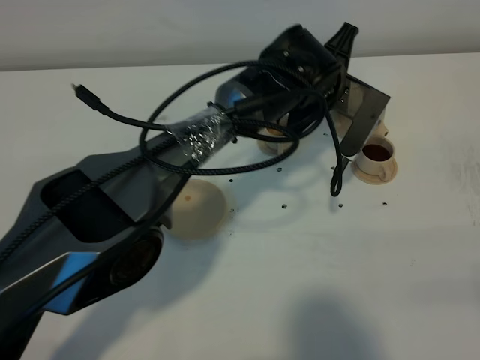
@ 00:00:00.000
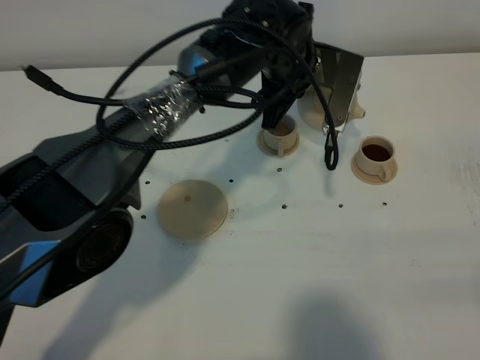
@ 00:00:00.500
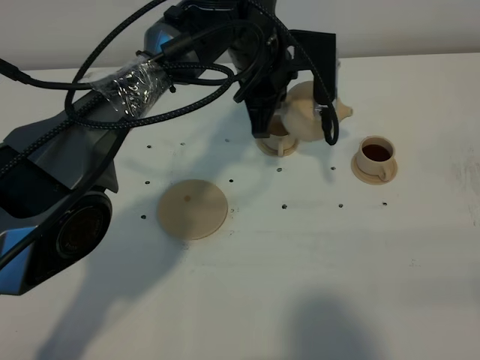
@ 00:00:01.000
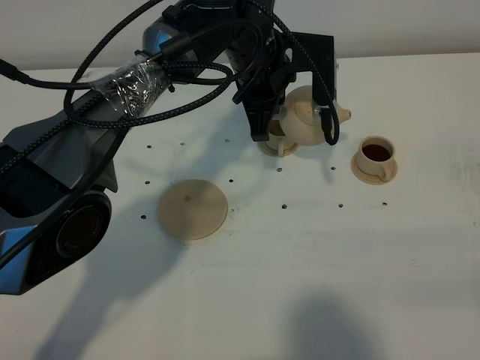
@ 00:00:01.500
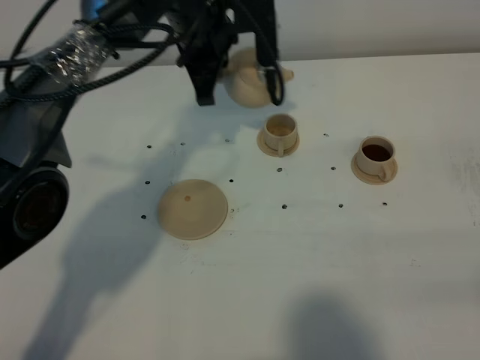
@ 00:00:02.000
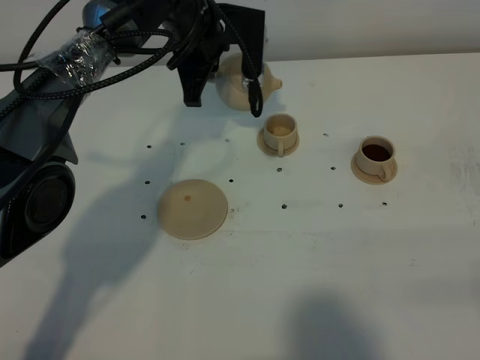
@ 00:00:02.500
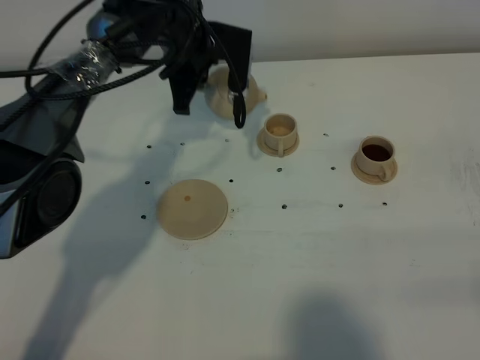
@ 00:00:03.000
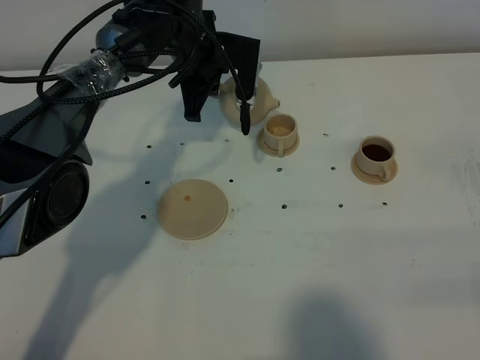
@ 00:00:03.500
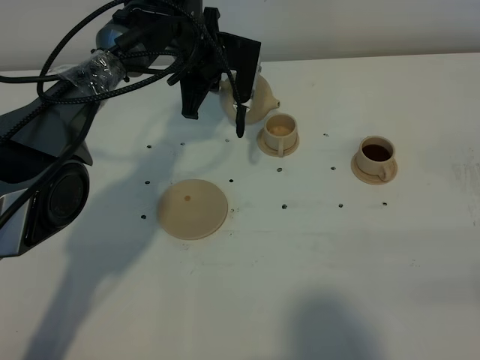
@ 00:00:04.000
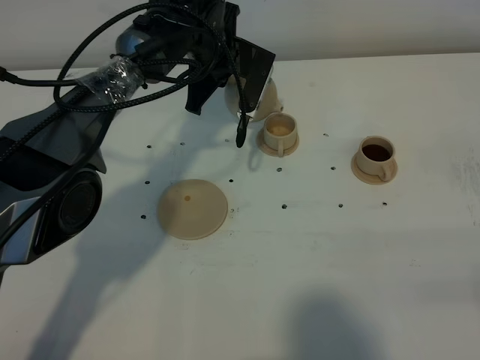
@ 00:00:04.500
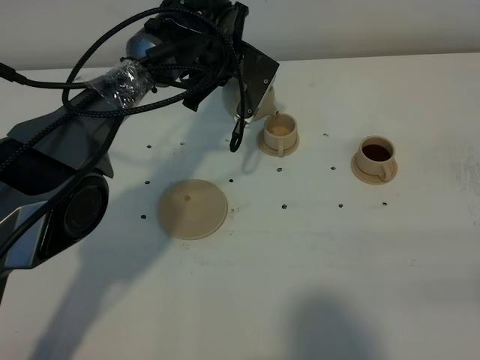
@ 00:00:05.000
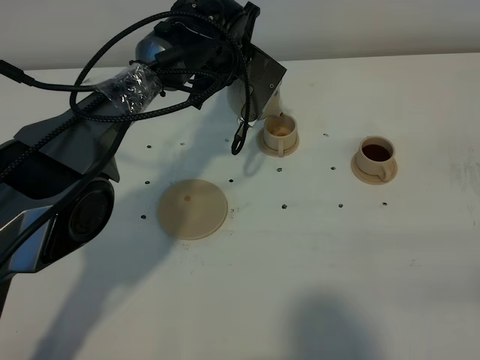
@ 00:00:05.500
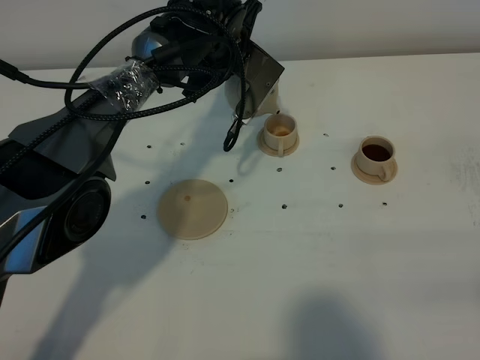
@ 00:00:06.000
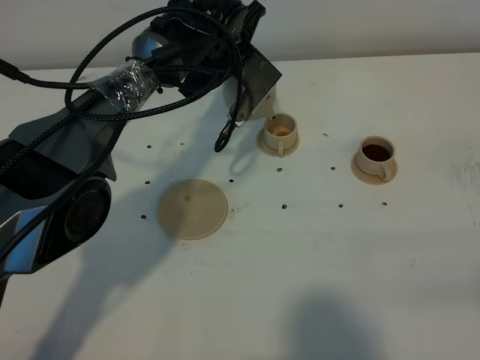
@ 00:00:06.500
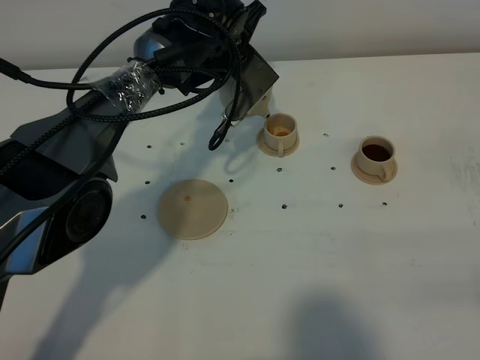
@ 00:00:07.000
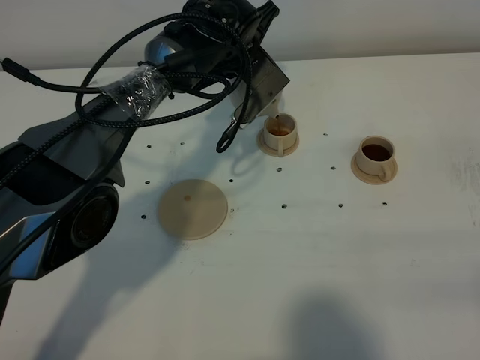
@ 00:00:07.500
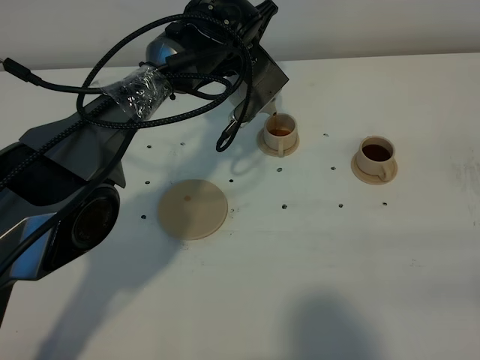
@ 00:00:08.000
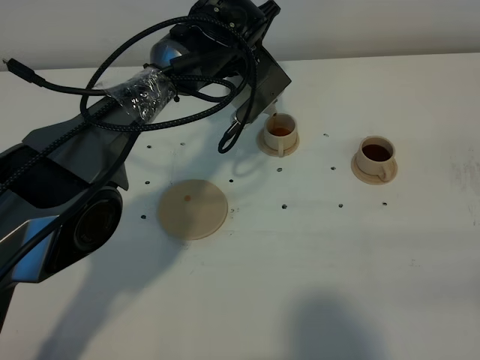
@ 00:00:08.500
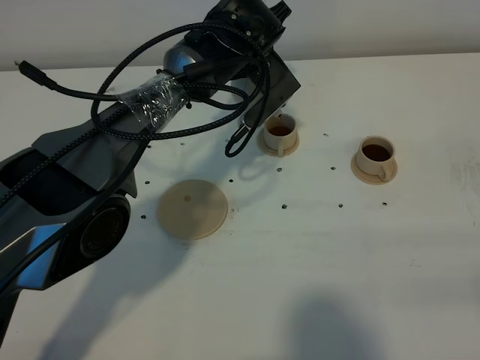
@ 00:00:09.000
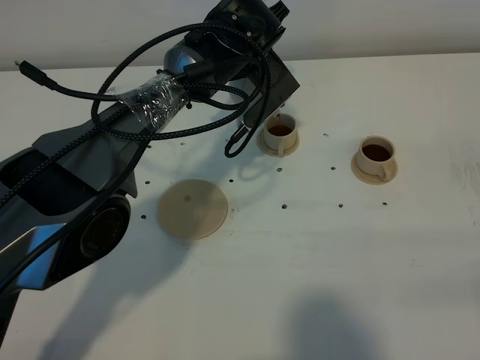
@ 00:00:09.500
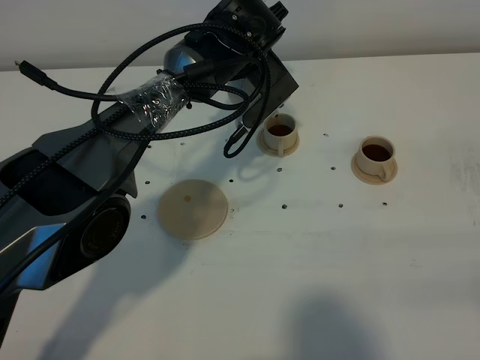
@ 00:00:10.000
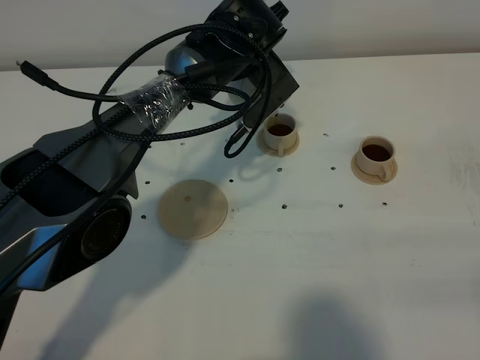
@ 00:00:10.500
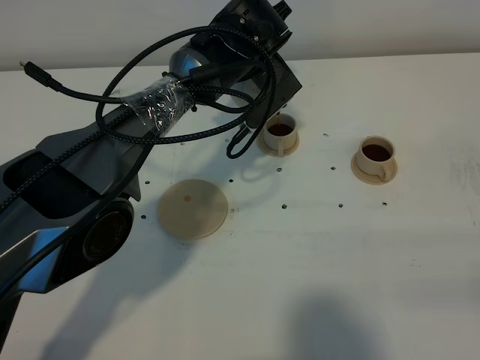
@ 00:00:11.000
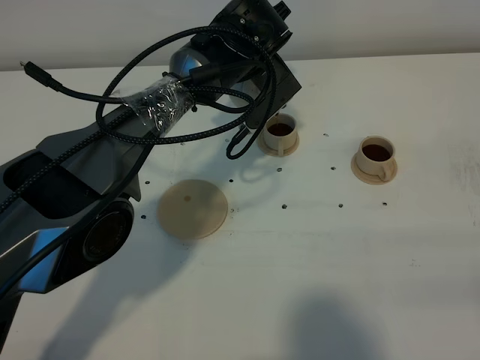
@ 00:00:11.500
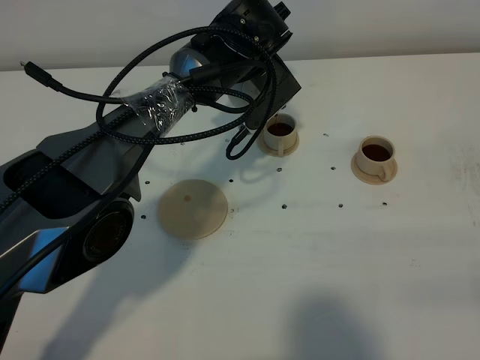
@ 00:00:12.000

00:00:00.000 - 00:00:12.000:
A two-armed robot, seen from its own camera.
Task of the whole recording: grasp the brown teapot and pour the tea into the two brown teacups one by one, put the brown teapot back in its original place.
00:00:00.000 - 00:00:02.000: The left gripper is displaced to the left and upward by some 15 cm.
00:00:02.000 - 00:00:04.000: The left gripper heads downward, covering about 10 cm.
00:00:06.000 - 00:00:10.000: The grippers move only a little.
00:00:10.000 - 00:00:12.000: Both grippers stay about where they are.

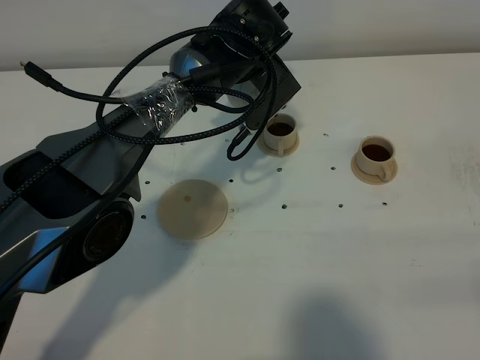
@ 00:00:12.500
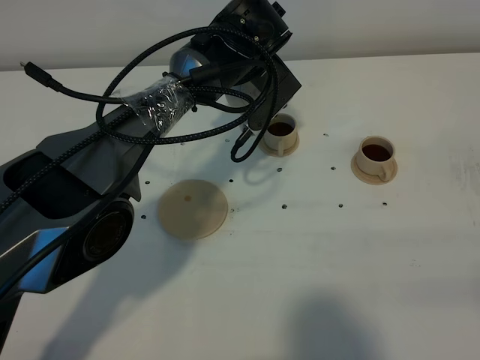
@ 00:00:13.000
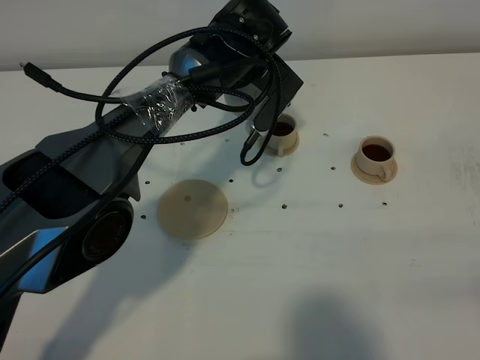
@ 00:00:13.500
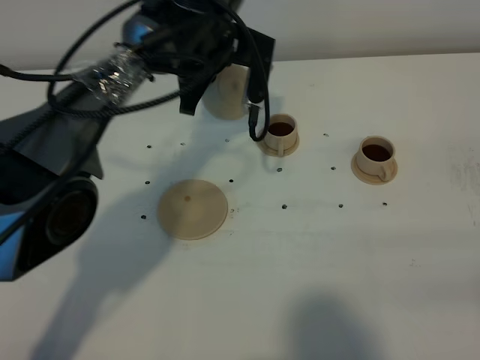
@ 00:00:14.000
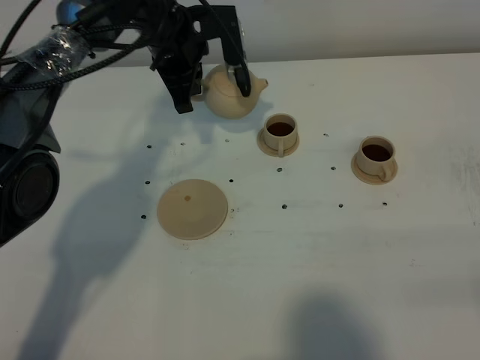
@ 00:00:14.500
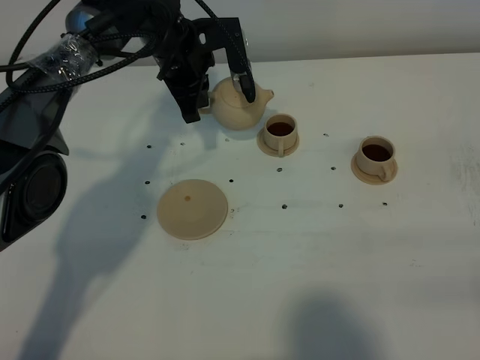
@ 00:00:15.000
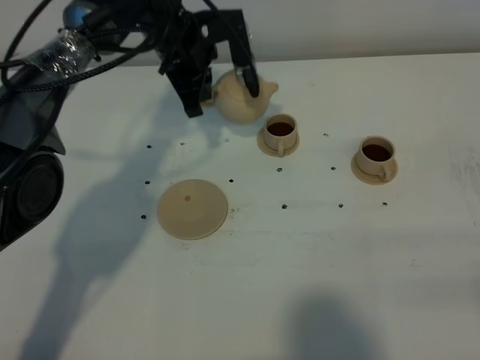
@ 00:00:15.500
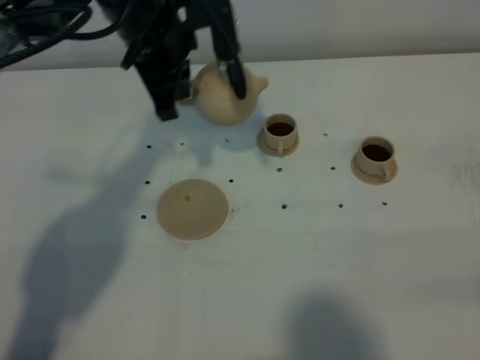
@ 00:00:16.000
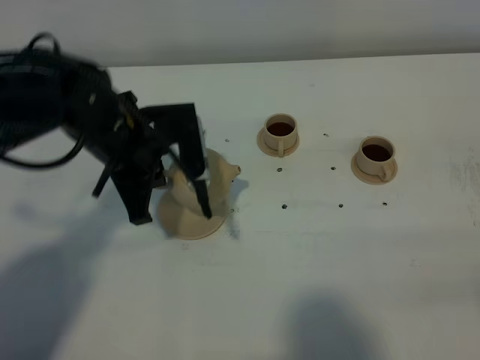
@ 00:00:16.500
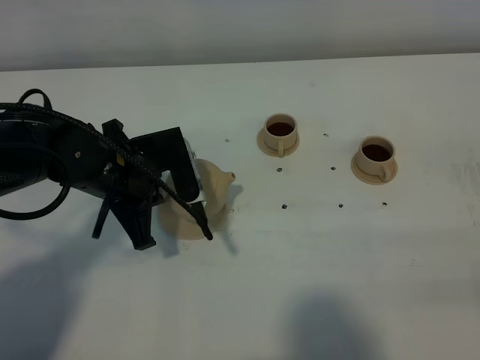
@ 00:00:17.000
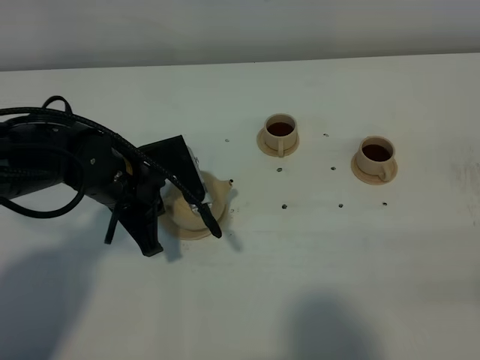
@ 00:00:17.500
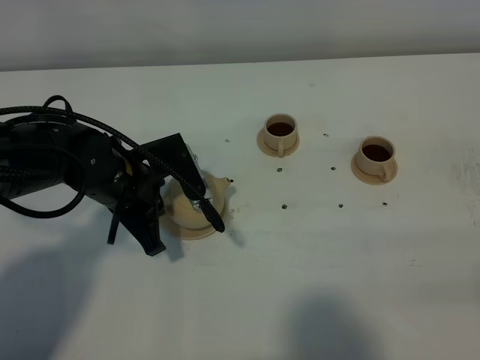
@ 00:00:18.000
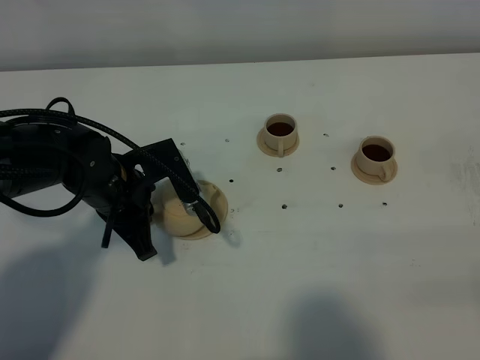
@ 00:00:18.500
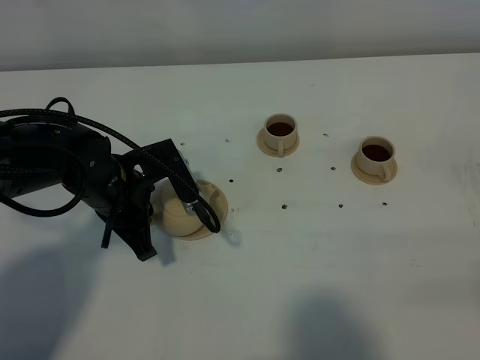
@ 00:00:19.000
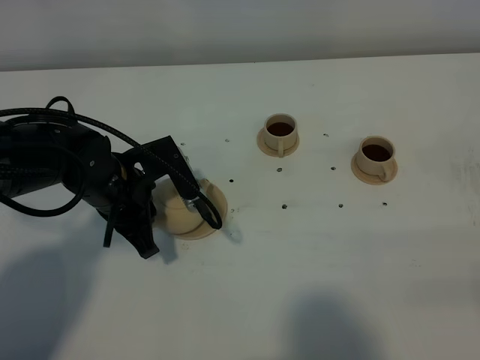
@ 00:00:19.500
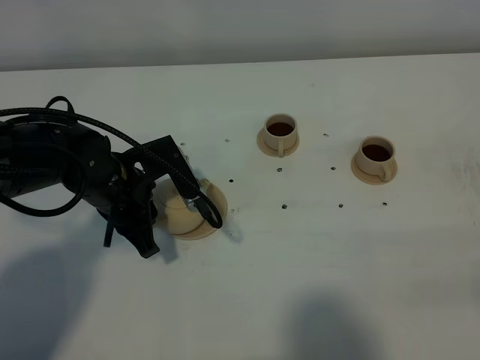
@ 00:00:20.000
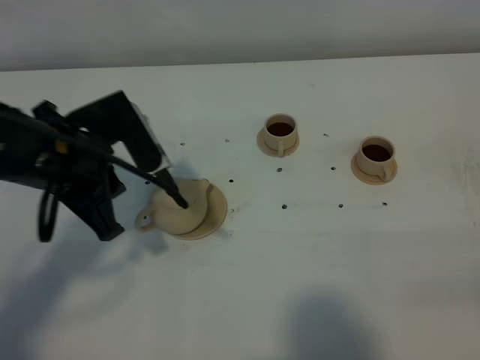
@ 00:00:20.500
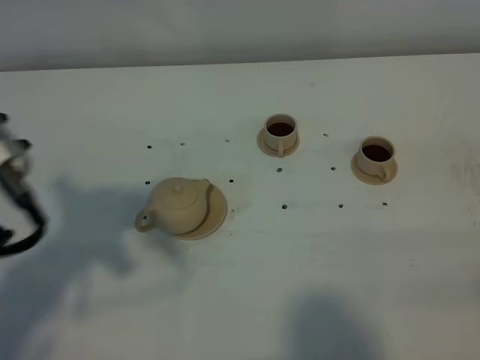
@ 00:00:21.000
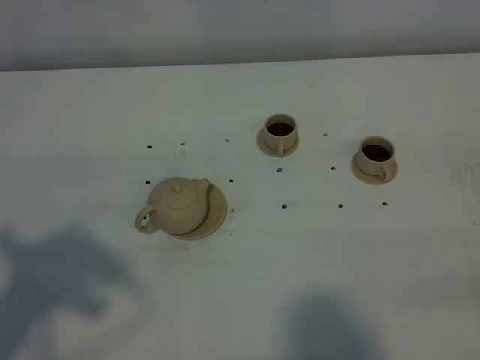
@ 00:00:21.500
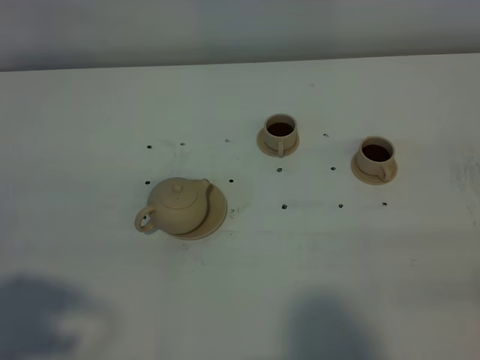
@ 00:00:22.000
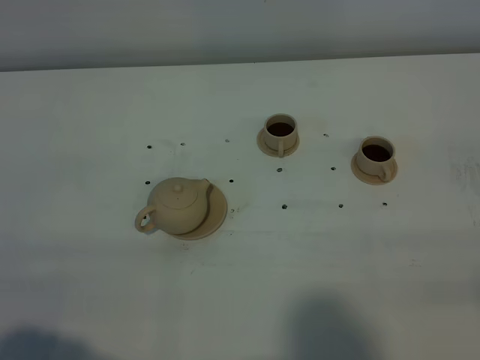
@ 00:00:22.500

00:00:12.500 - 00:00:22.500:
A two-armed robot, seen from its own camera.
Task of the whole recording: grasp the brown teapot and pour the tea into the two brown teacups one by one, put the brown teapot back in its original place.
00:00:12.500 - 00:00:14.500: The left gripper travels to the left by about 10 cm.
00:00:14.500 - 00:00:16.500: The left gripper goes approximately 15 cm backward.
00:00:16.500 - 00:00:18.500: The left gripper shifts by some 5 cm.
00:00:18.500 - 00:00:20.500: The left gripper moves upward, approximately 10 cm, and opens its fingers.
00:00:20.500 - 00:00:22.500: The left gripper is displaced backward by approximately 25 cm.

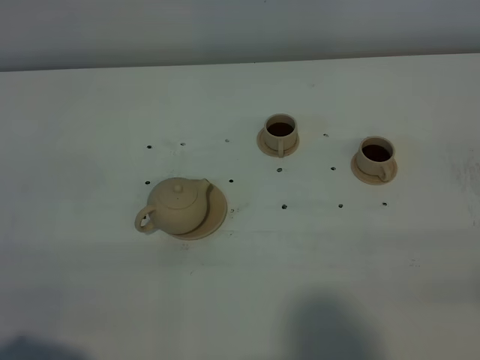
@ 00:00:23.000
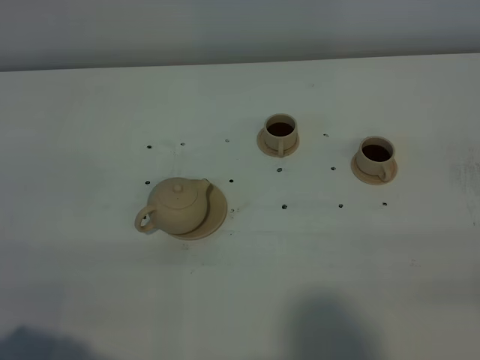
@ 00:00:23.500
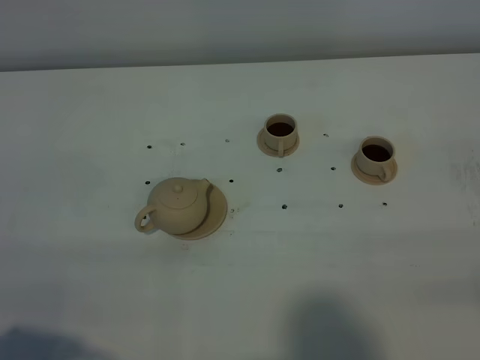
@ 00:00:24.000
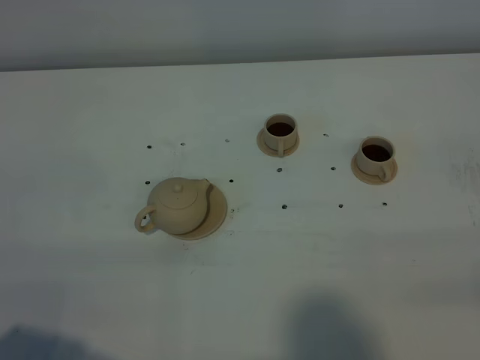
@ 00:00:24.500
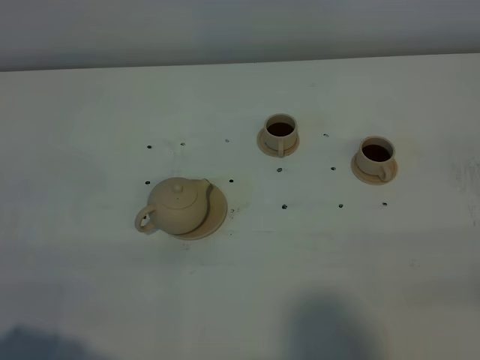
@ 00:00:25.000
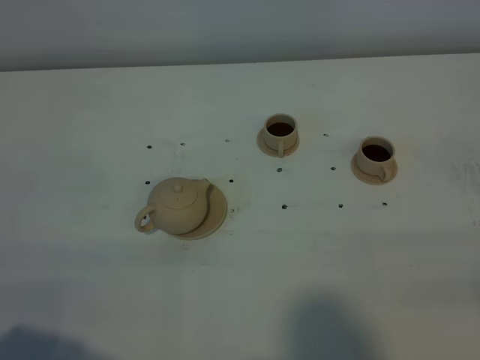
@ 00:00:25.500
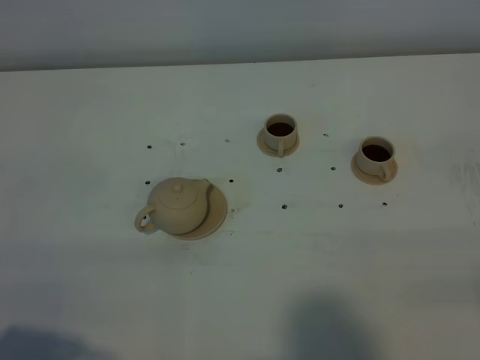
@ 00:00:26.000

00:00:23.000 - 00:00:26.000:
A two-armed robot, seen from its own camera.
Task of the whole recording: grasp the brown teapot and pour the tea into the two brown teacups one by one, put the brown teapot back in its original place.
00:00:24.500 - 00:00:26.000: The two grippers keep their place.
